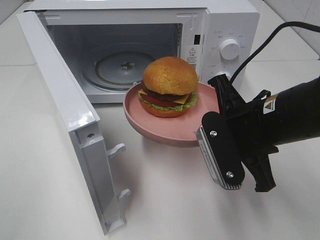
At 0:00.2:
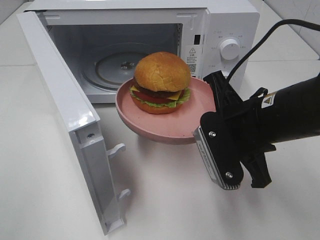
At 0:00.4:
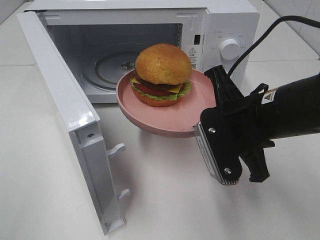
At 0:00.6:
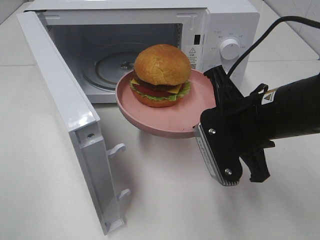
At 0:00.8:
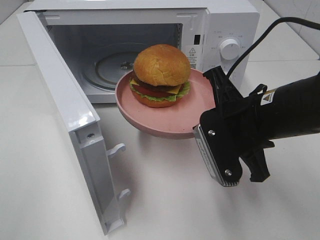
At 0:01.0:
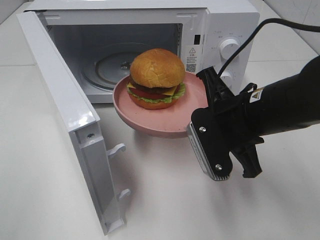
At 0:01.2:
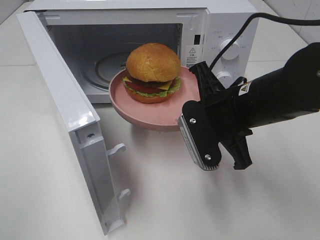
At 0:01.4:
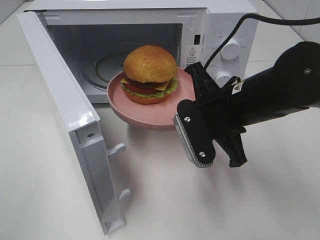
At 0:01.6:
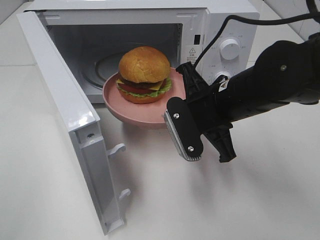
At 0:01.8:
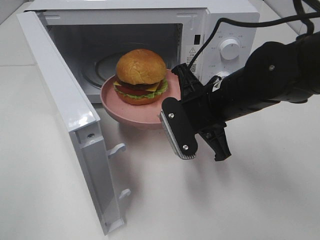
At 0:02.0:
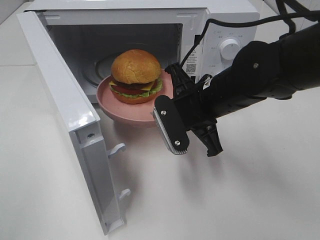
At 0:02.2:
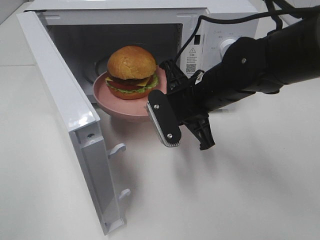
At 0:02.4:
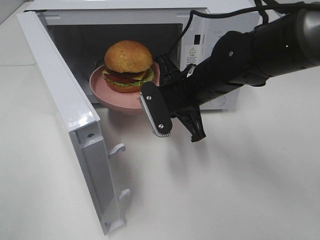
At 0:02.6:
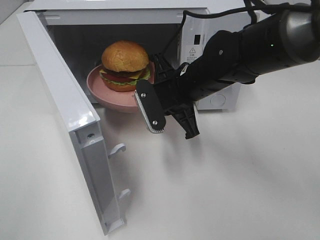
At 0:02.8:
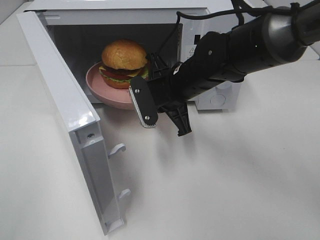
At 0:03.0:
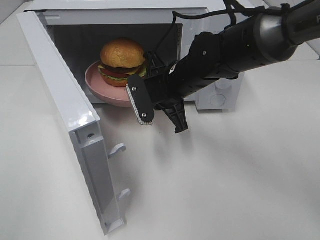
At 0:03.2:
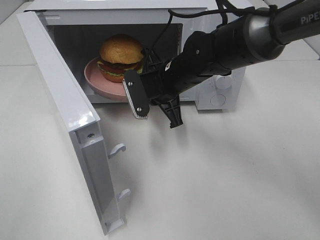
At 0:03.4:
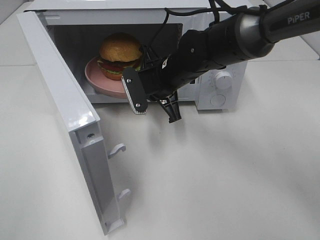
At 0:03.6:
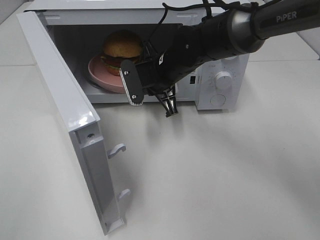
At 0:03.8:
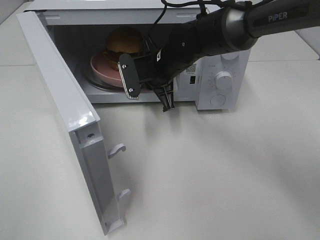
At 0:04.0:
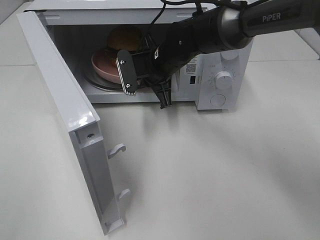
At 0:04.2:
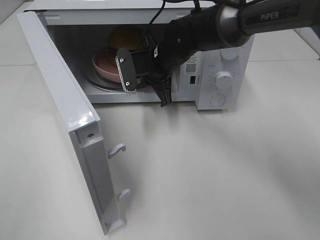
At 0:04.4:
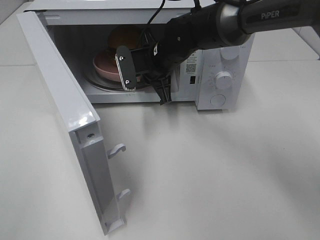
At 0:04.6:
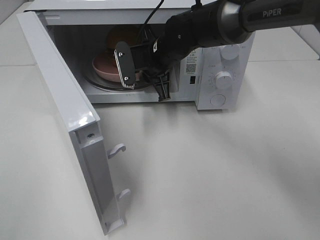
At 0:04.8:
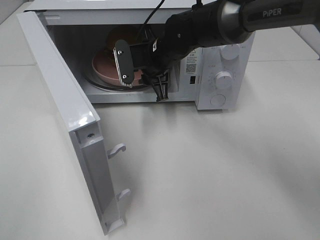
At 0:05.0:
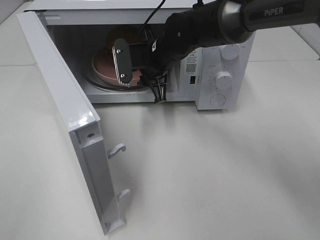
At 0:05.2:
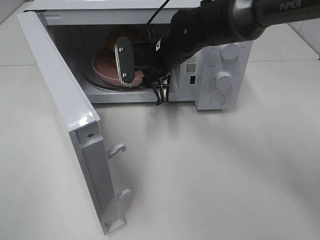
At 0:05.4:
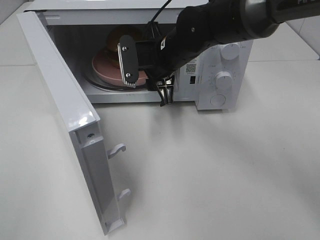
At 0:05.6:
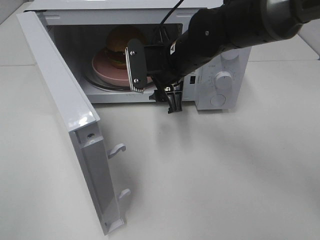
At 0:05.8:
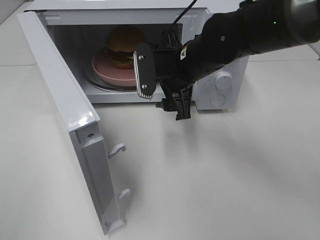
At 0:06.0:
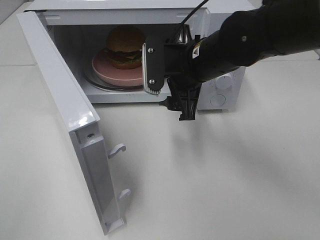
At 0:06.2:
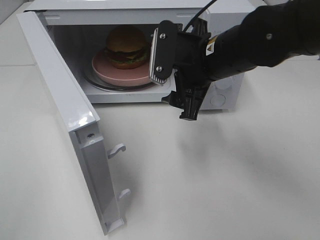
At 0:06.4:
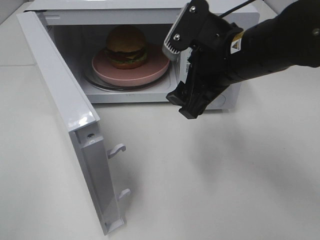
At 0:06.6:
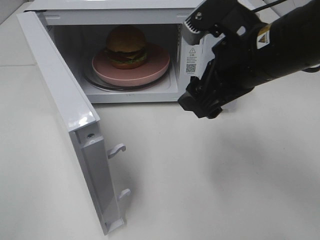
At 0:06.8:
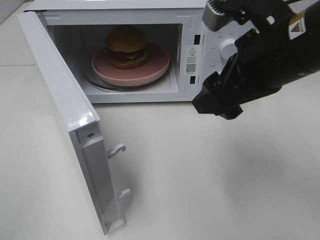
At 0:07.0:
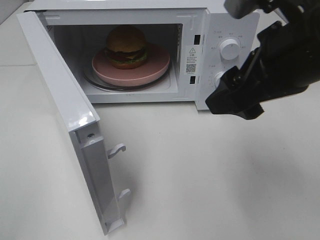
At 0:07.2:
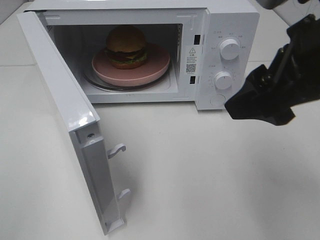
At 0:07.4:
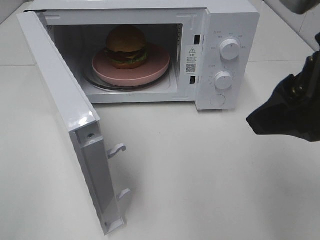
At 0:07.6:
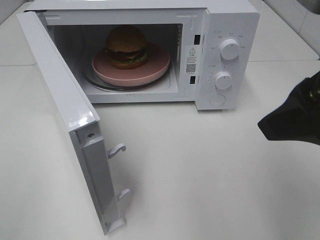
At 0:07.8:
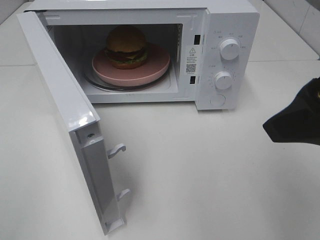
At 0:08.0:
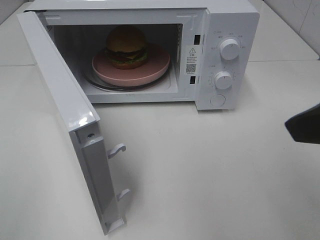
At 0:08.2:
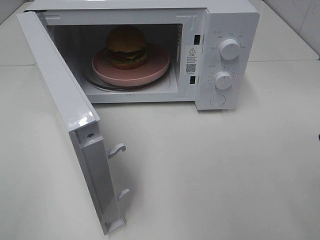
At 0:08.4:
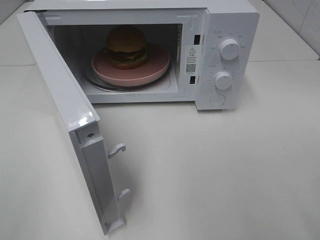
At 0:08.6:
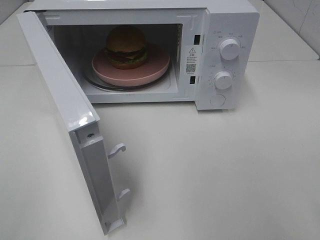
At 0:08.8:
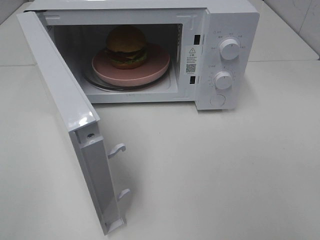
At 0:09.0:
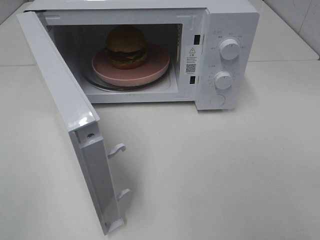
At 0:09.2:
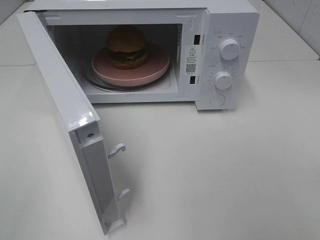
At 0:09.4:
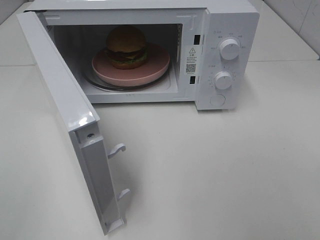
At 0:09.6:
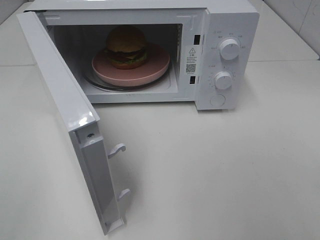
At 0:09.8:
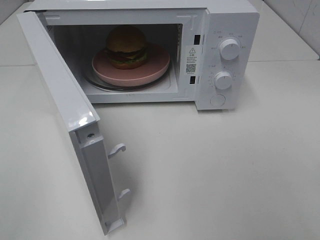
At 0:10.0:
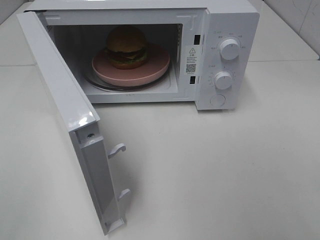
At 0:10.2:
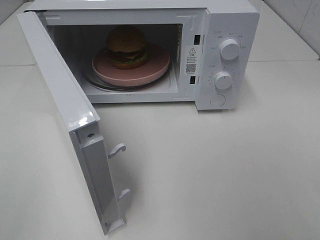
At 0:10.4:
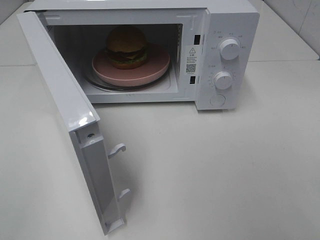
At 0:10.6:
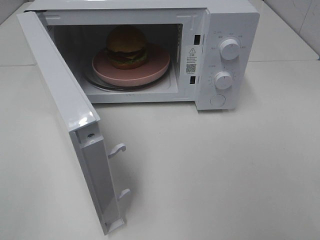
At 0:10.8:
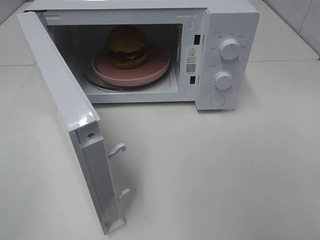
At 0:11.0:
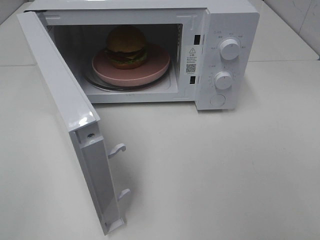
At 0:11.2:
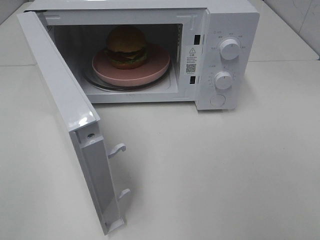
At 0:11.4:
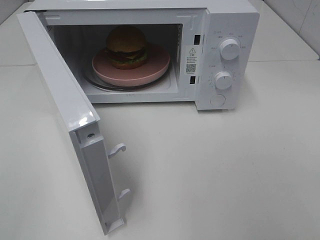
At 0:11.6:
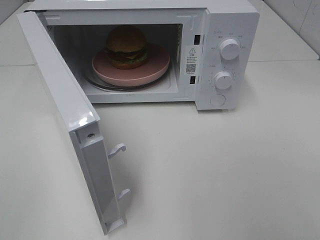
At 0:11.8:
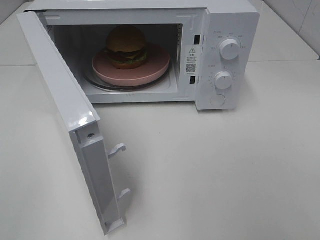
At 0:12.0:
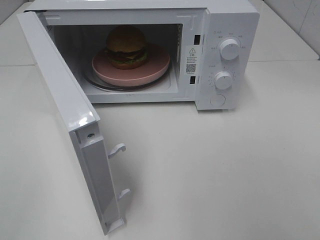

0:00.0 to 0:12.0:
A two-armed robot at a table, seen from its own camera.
Task of the whole recording: Heat the burger.
Step, 0:00.0 to 0:04.6: Right hand: place the plate in the microwave.
0:00.0 to 0:01.6: The right gripper shifts roughly 5 cm forward.
0:01.6 to 0:03.0: The right gripper moves forward and to the left, roughly 10 cm.
0:03.0 to 0:04.4: The right gripper is displaced forward by approximately 5 cm.
0:04.4 to 0:06.0: The right gripper shifts some 10 cm backward and to the right, and opens its fingers.
0:06.0 to 0:07.6: The right gripper goes some 25 cm backward, upward and to the right.
0:07.6 to 0:09.0: The right gripper is displaced backward and to the right by approximately 15 cm.
0:10.4 to 0:12.0: Neither gripper changes place.

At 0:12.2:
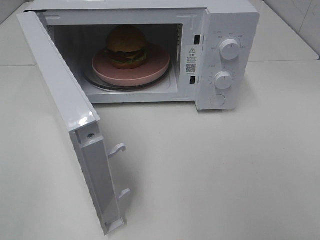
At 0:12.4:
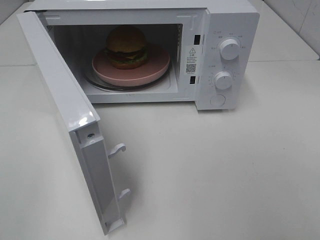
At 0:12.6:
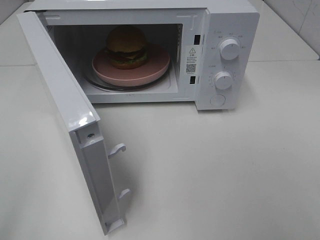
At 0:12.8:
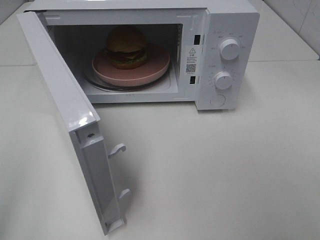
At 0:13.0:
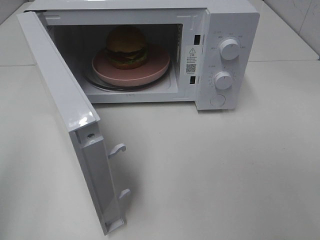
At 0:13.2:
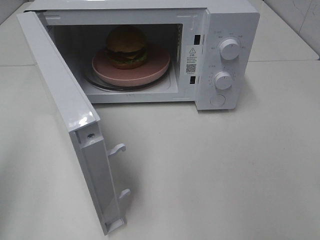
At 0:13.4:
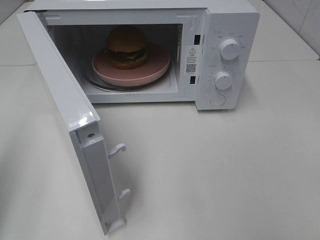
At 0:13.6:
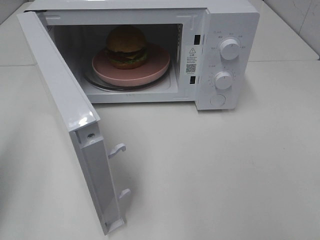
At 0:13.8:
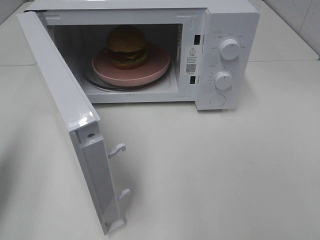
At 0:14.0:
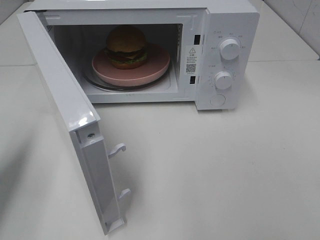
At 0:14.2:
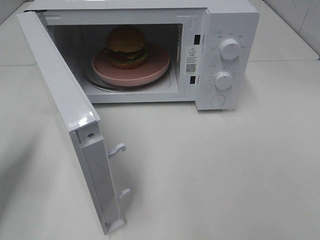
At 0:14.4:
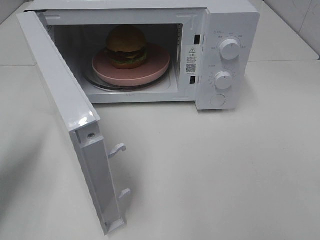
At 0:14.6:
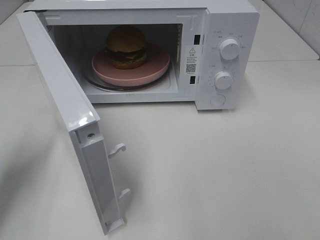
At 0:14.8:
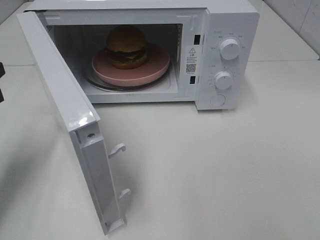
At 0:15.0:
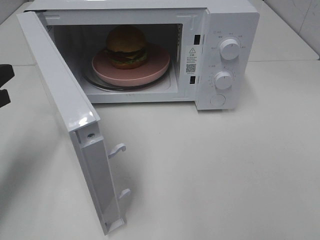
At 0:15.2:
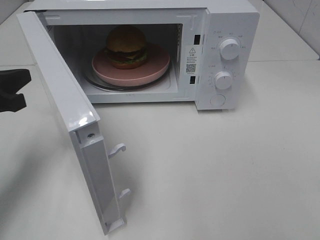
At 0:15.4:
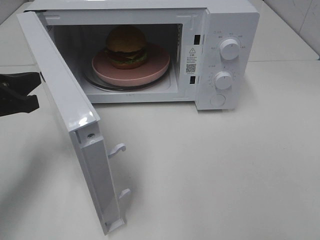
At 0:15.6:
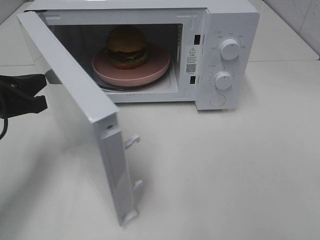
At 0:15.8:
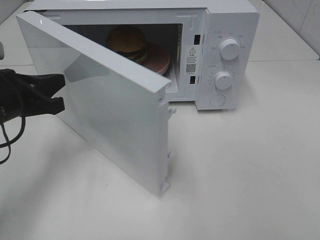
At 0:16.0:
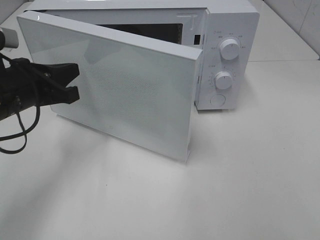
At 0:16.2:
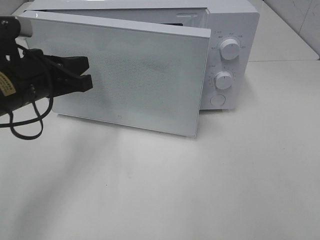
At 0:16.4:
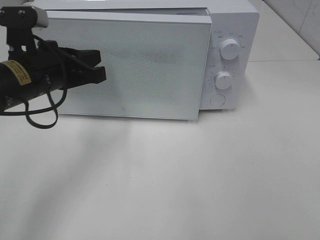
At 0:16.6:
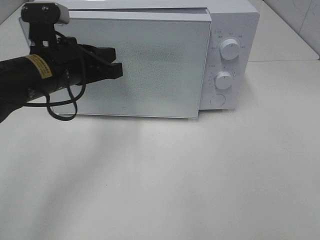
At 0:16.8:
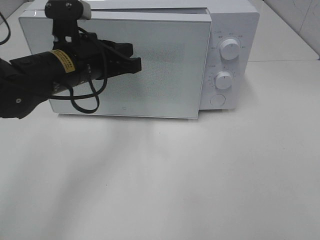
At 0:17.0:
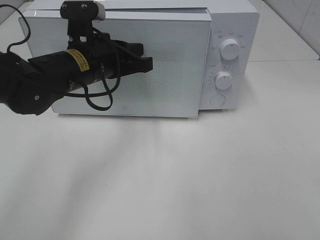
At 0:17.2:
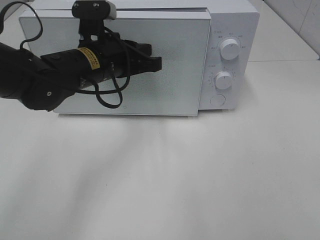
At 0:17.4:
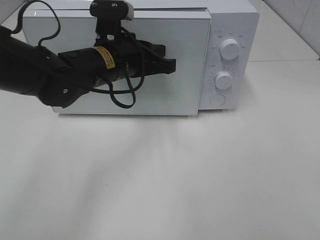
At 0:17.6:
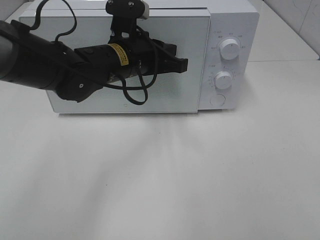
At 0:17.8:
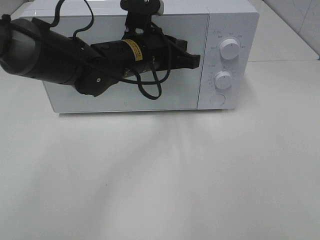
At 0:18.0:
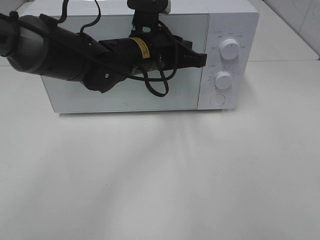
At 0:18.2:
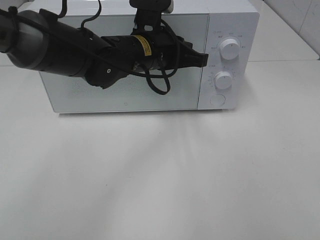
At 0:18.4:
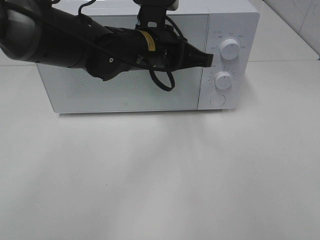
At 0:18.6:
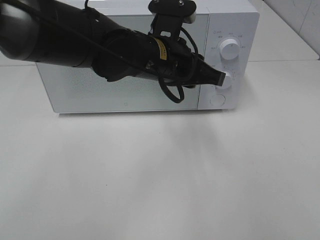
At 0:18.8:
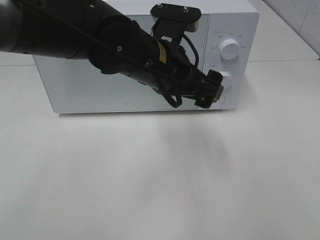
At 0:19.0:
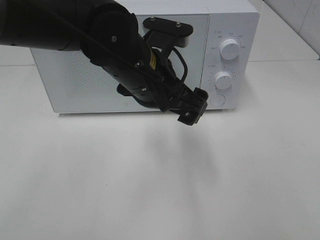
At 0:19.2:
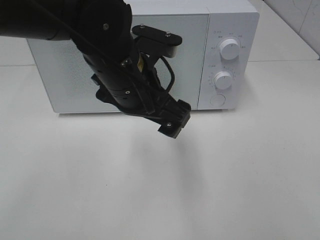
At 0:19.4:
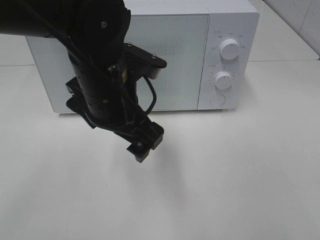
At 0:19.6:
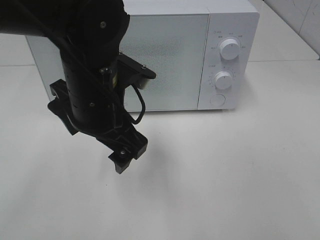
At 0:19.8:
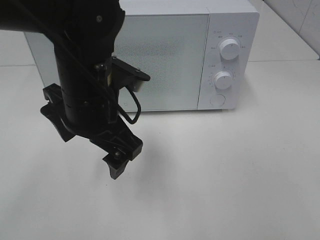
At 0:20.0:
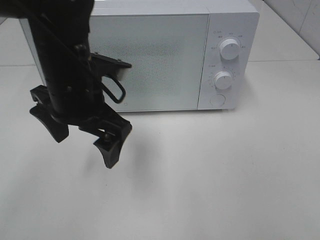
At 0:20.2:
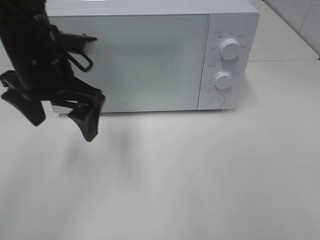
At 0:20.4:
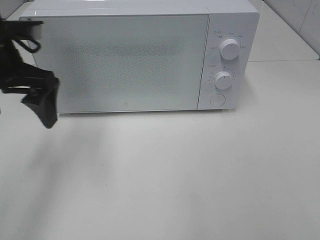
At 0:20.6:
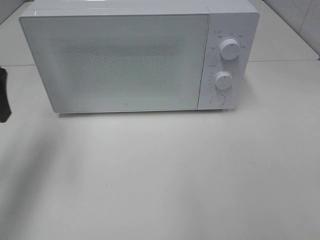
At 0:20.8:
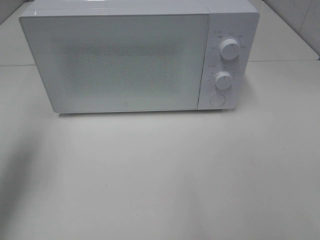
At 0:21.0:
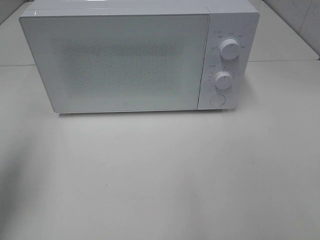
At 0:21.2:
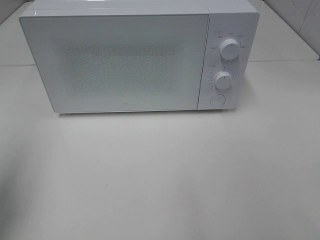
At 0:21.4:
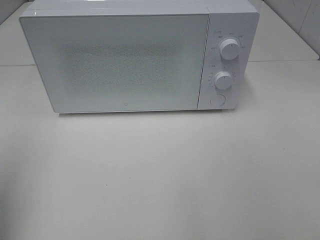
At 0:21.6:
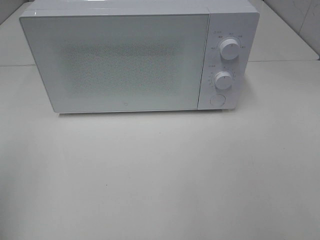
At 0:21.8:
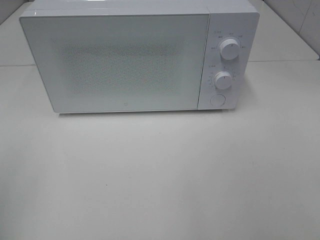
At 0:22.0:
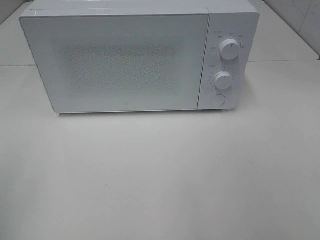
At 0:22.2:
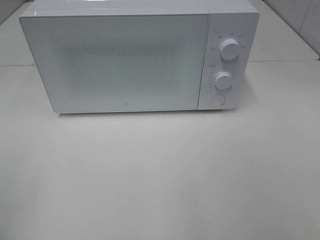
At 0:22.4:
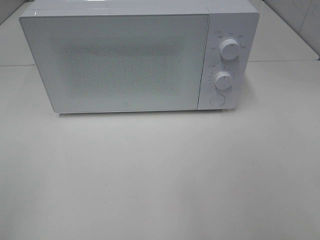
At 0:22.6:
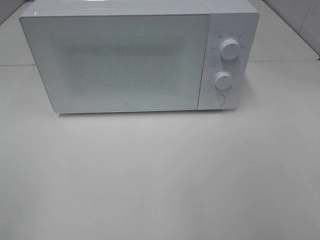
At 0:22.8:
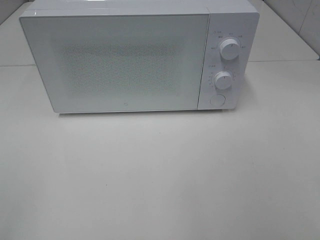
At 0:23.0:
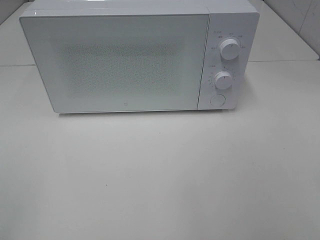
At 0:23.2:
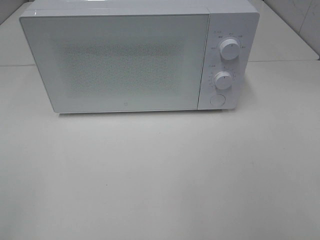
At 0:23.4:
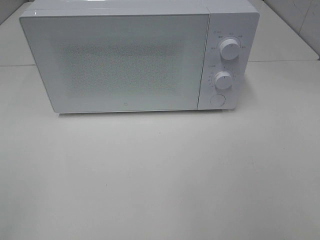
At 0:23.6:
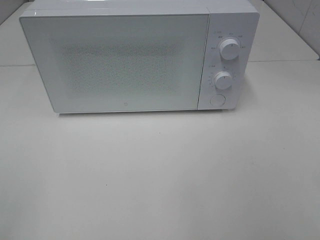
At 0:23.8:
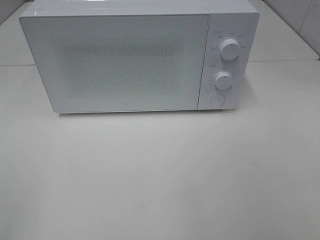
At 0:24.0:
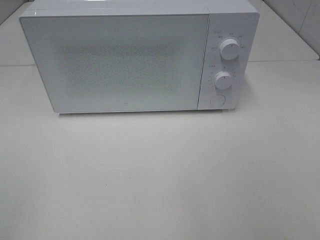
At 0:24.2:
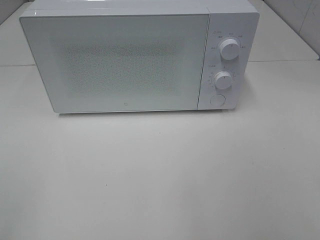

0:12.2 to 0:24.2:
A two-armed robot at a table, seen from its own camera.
Task of the whole recording: Heat the burger.
Step, 0:12.2 to 0:18.2: Left hand: close the microwave door.
0:12.2 to 0:13.8: The left gripper travels forward by about 20 cm, and closes.
0:13.8 to 0:15.2: The left gripper goes roughly 10 cm forward, downward and to the right.
0:15.2 to 0:16.6: The left gripper heads to the right, covering roughly 15 cm.
0:16.6 to 0:18.2: The left gripper goes some 15 cm to the right and forward.
0:18.2 to 0:19.8: The left gripper goes approximately 15 cm backward and to the left, and opens up.
0:19.8 to 0:21.2: The left gripper moves to the left, approximately 25 cm.
0:21.2 to 0:22.6: The left gripper heads backward, covering approximately 20 cm.
0:22.6 to 0:24.2: Both grippers stay put.
